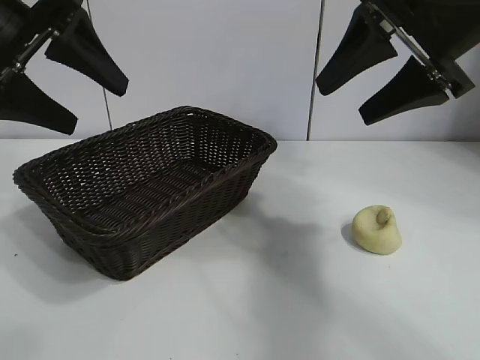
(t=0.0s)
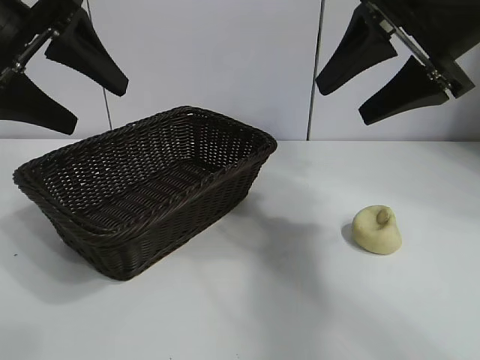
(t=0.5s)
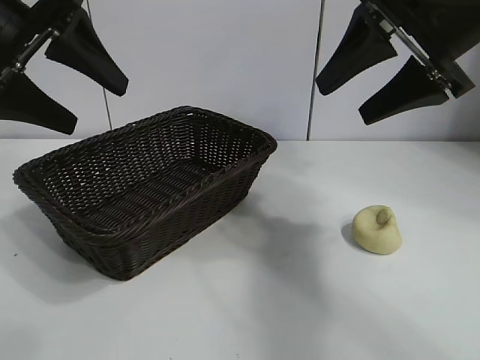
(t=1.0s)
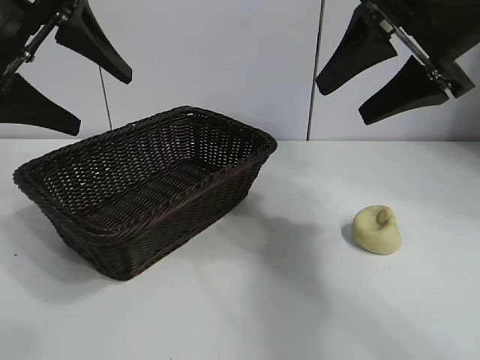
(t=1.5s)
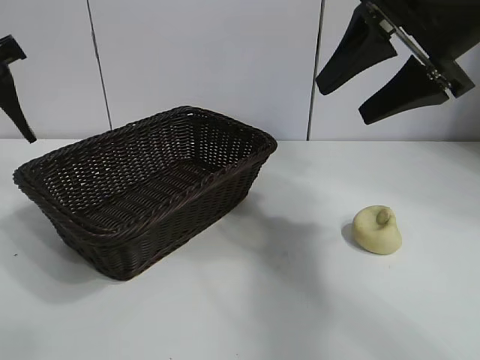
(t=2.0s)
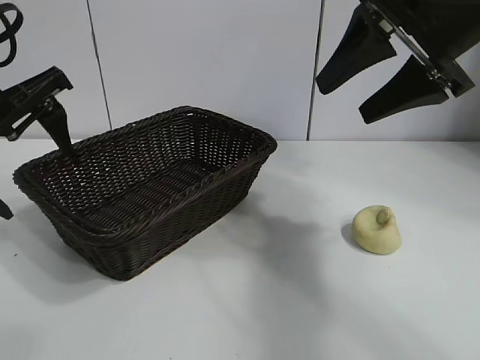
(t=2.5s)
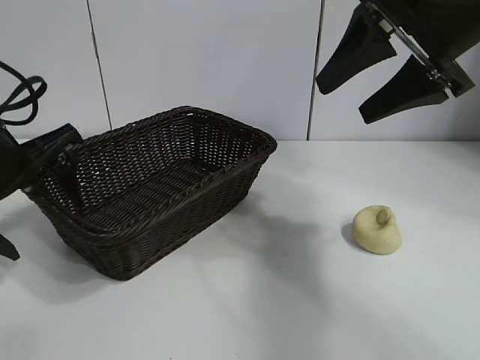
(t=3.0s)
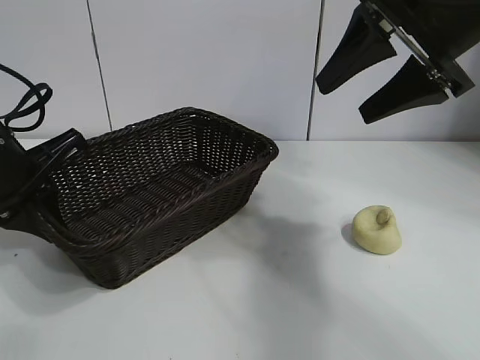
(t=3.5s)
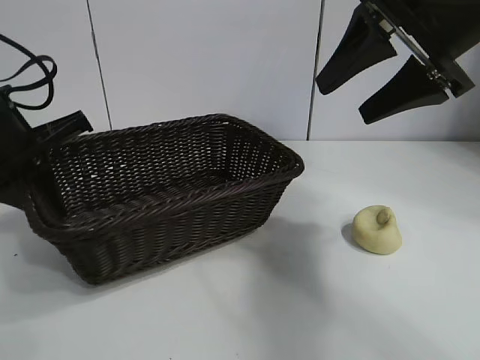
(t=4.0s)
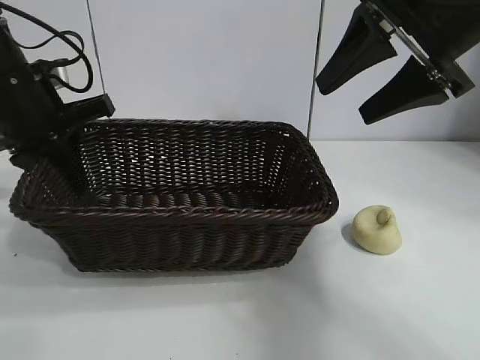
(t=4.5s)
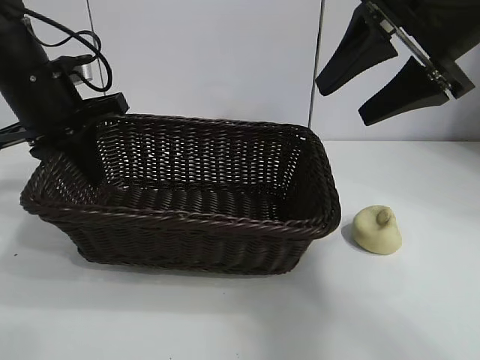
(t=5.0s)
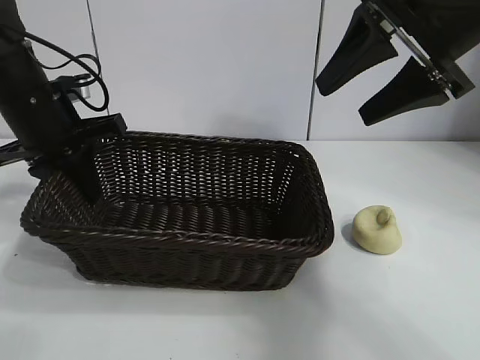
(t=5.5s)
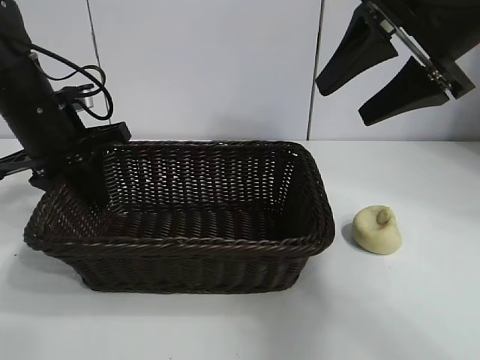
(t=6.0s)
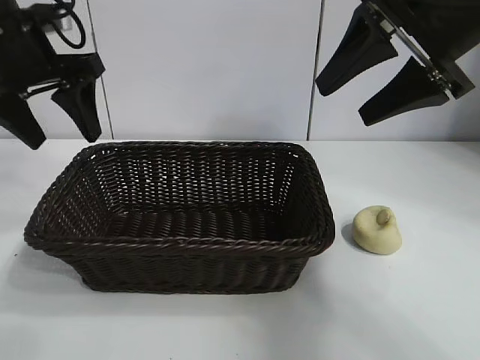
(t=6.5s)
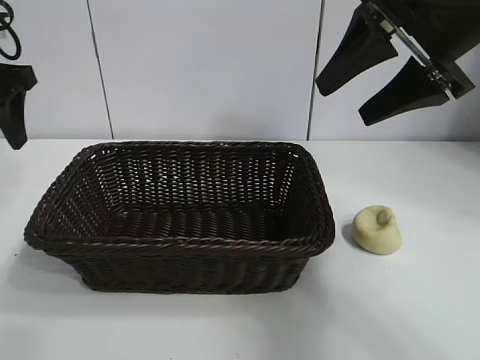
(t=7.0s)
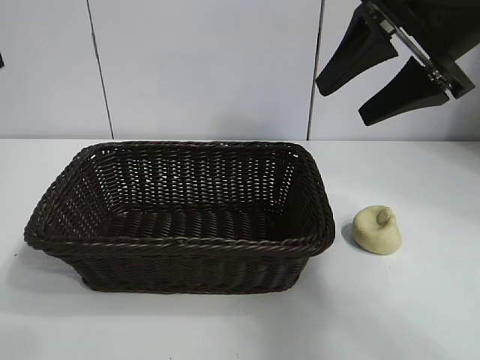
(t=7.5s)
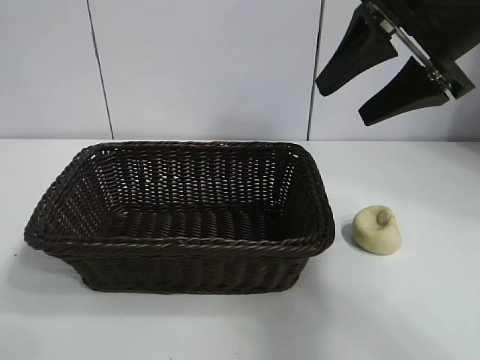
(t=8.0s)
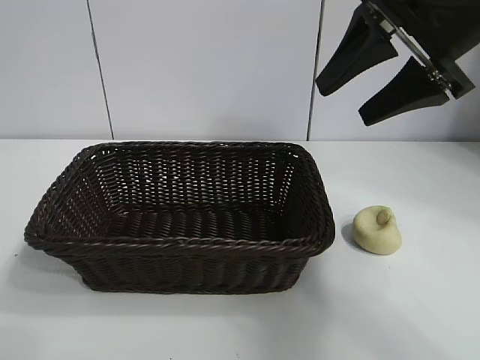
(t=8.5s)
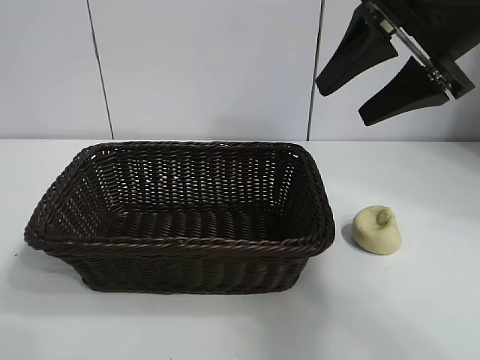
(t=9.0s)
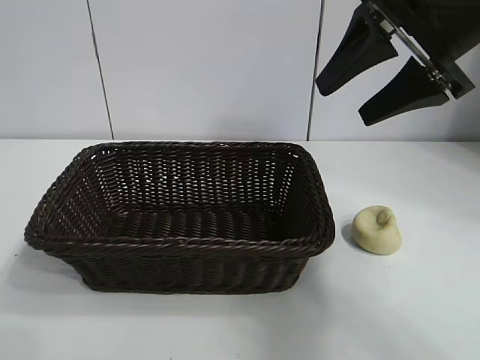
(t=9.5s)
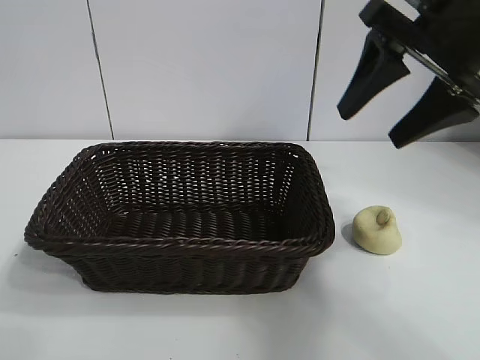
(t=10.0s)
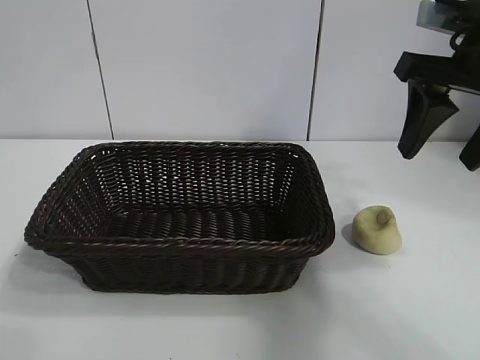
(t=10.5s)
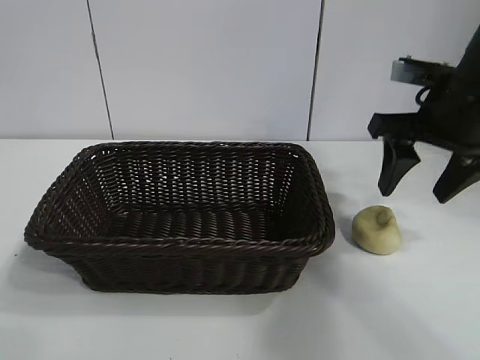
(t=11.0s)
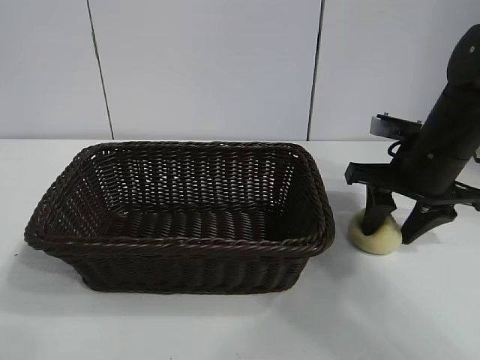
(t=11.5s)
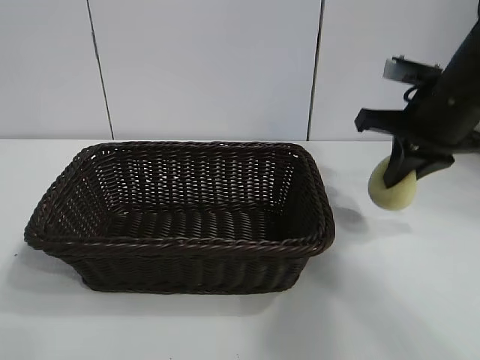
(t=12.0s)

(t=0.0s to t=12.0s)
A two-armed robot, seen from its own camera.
Task of the whole recording: pick up the egg yolk pastry and put it into the basket.
Step, t=1.5s - t=3.5s: Grasp the basket with left gripper.
Step, t=4.0s - t=6.0s: Place the basket in the center of view with left gripper.
Step, t=6.5s - t=11.5s: Grasp egg yolk pastry with right gripper.
